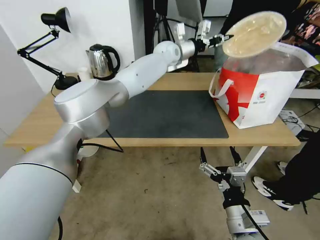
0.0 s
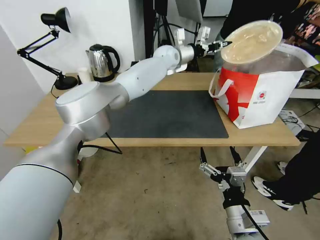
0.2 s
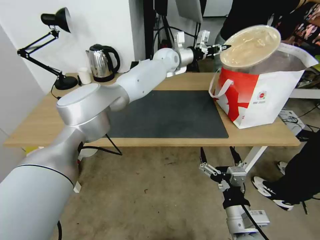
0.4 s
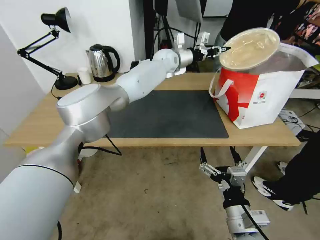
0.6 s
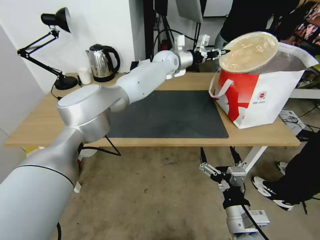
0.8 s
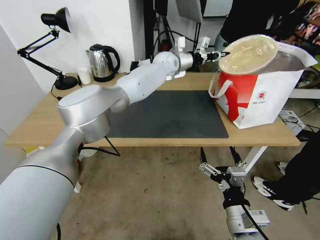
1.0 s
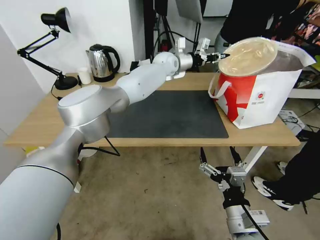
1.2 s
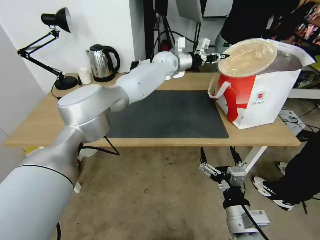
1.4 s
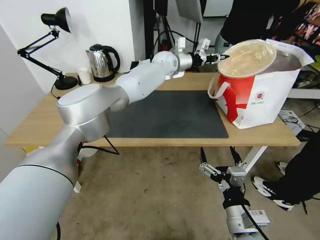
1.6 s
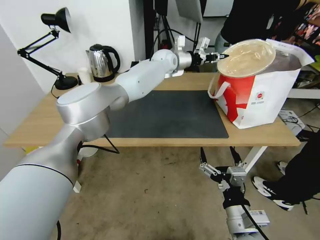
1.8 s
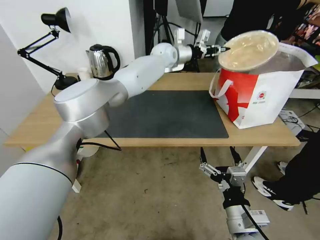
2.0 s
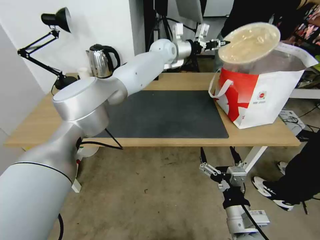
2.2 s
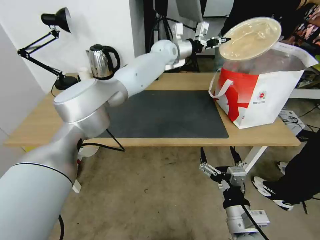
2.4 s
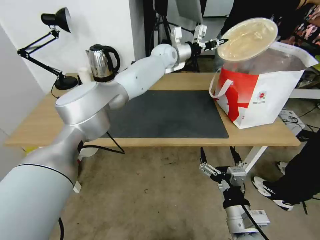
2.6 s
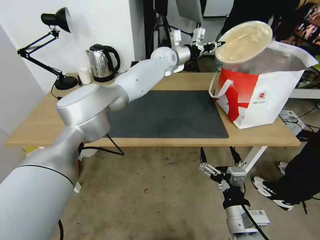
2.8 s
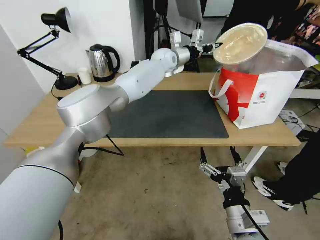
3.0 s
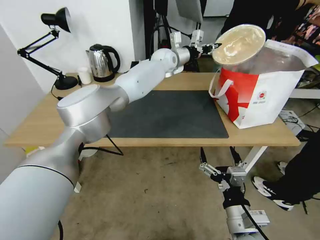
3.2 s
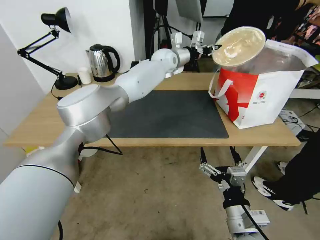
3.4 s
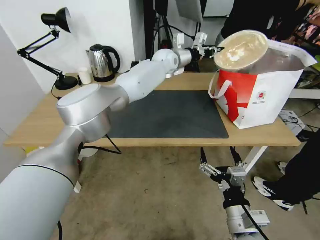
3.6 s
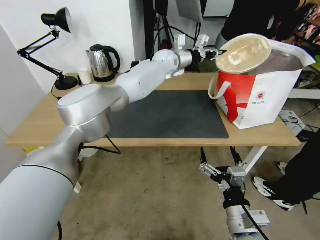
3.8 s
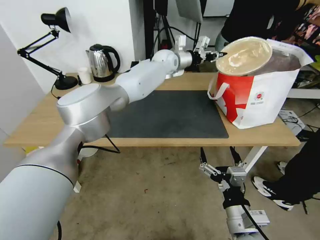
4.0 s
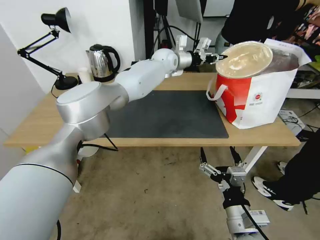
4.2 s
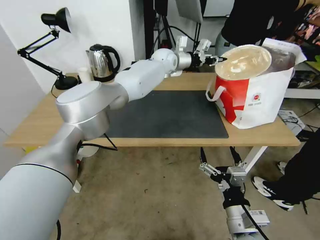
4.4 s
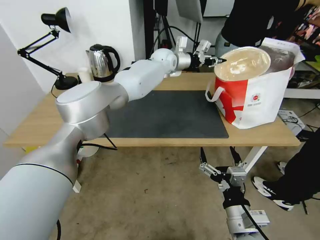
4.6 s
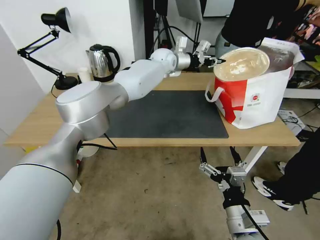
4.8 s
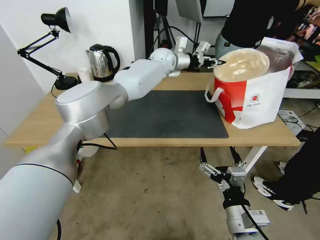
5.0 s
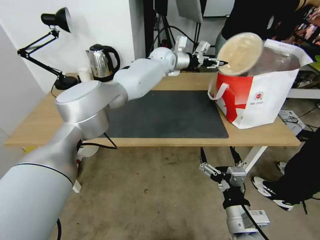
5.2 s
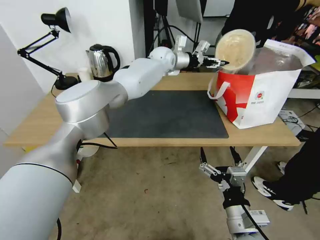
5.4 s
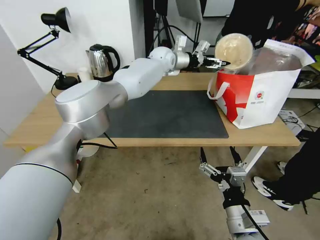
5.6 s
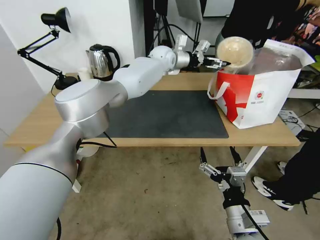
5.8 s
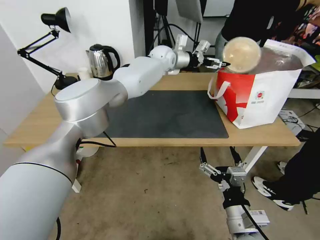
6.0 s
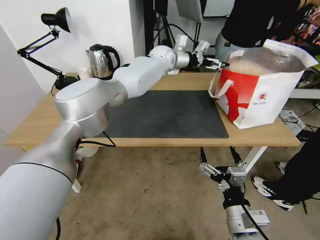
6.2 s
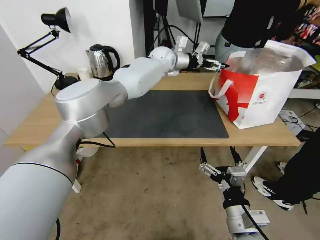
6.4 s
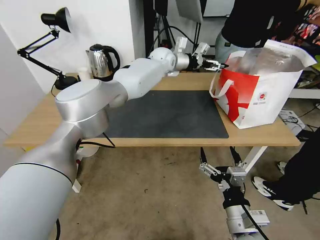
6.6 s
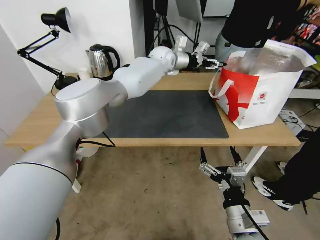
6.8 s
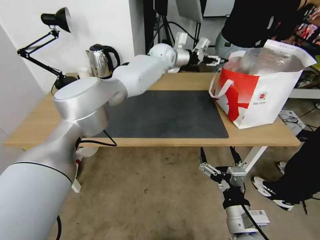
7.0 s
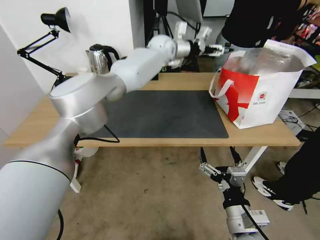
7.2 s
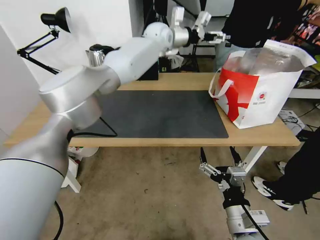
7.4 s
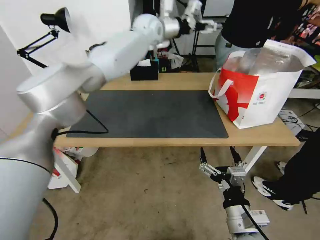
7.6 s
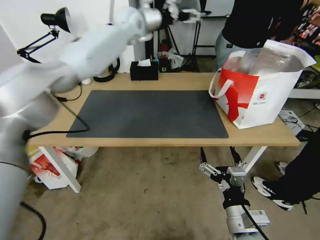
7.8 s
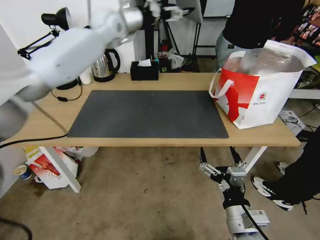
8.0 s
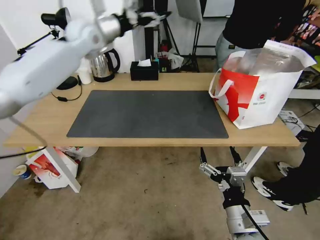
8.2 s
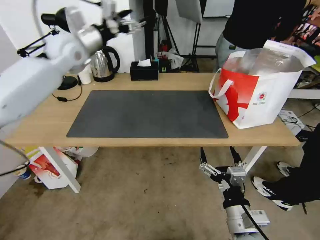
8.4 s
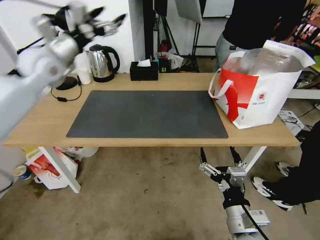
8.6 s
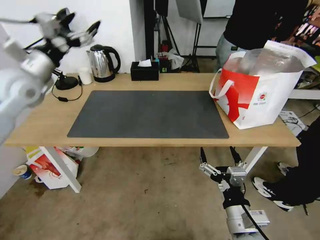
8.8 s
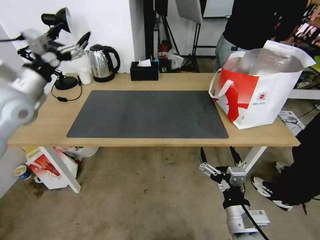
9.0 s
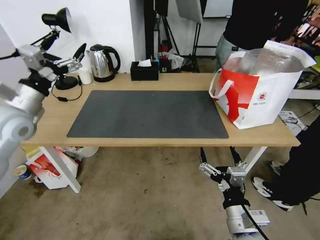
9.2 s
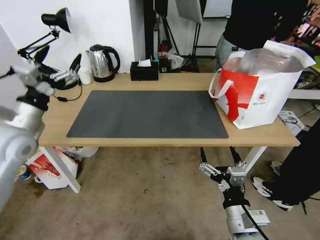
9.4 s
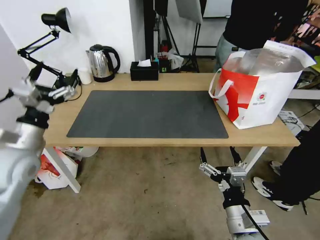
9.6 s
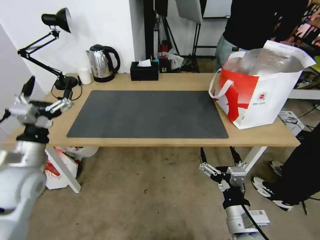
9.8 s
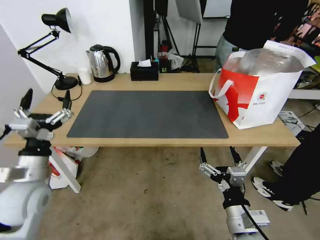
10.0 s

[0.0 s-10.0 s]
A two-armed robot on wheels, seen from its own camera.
Task of the whole recording: Pick up the trash from the table and place it into the takeout bag.
0.0 to 4.2 s: The grippers move only a little.
4.2 to 5.8 s: The left gripper opens its fingers.
5.8 to 7.2 s: The grippers stay close to where they were, moving slightly.
7.2 to 8.6 s: The left gripper moves to the left and backward, roughly 40 cm.
8.6 to 10.0 s: The left gripper moves backward and downward, approximately 35 cm.

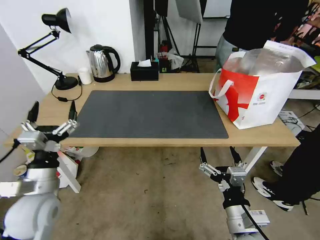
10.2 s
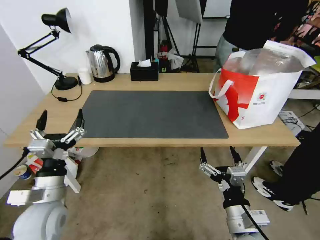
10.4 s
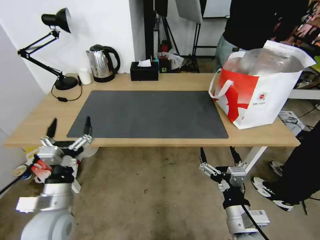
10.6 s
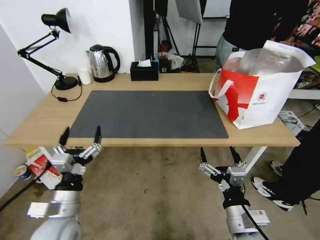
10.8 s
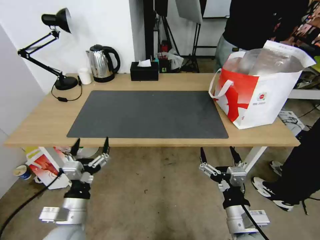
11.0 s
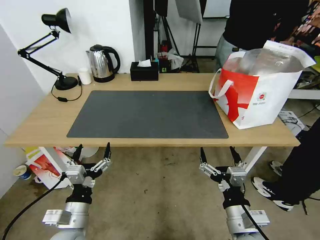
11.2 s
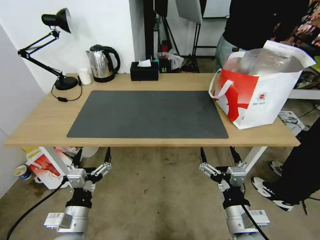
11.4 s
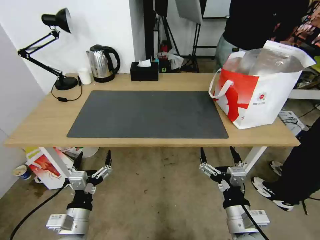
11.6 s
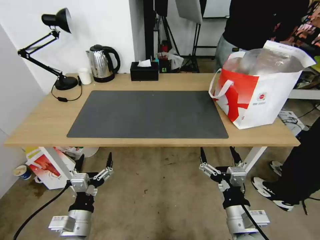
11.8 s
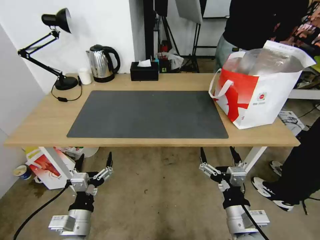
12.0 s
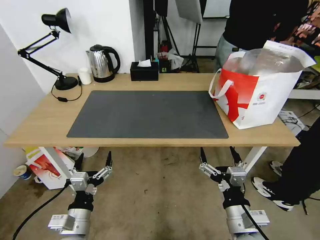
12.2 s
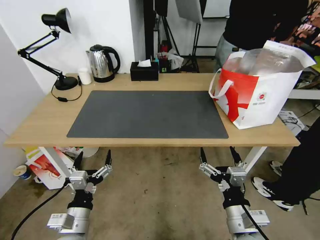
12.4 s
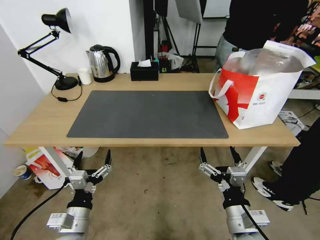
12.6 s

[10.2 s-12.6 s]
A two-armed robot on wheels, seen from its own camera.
Task of the whole recording: Pick up the trash from the table and place it into the takeout bag.
10.2 to 11.4 s: The left gripper moves downward, backward and to the right, some 10 cm.
11.4 to 12.6 s: The grippers make only small movements.

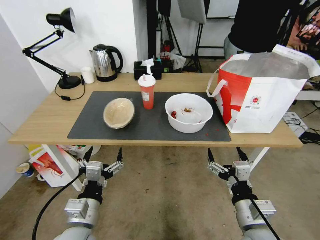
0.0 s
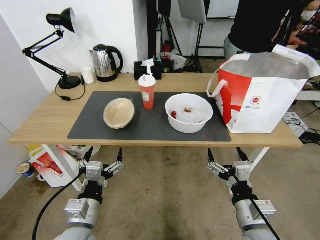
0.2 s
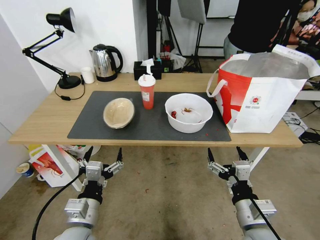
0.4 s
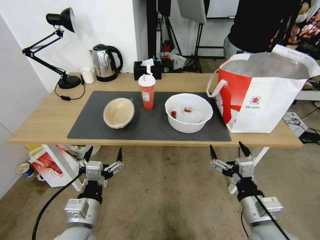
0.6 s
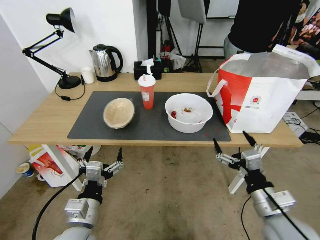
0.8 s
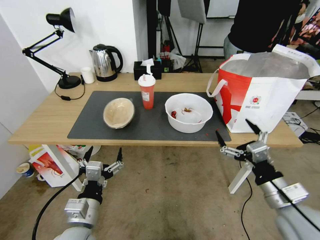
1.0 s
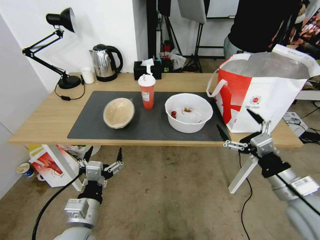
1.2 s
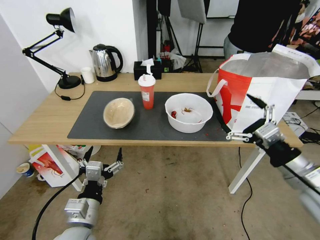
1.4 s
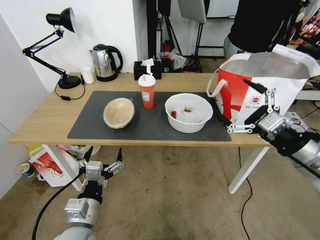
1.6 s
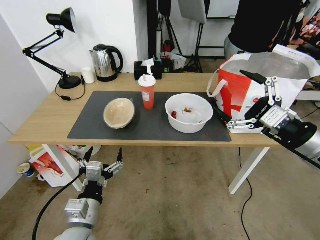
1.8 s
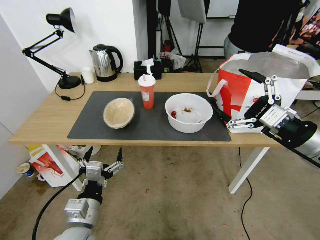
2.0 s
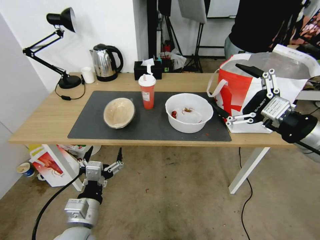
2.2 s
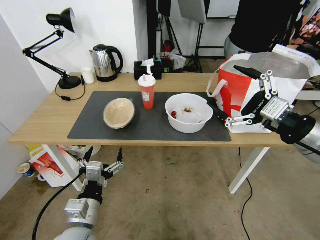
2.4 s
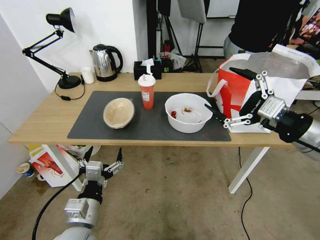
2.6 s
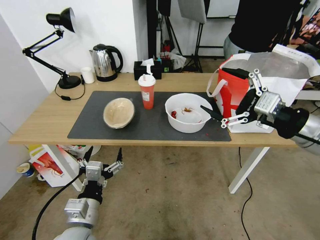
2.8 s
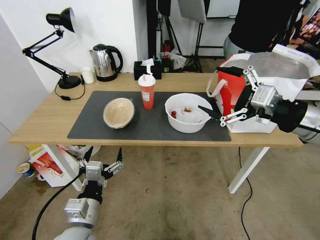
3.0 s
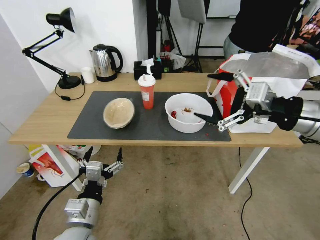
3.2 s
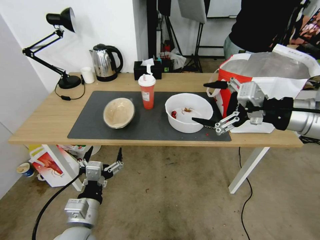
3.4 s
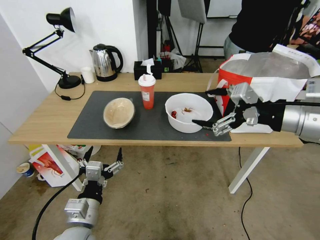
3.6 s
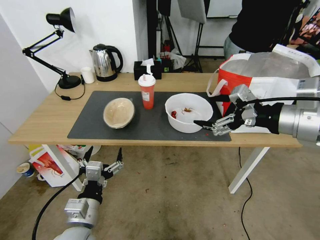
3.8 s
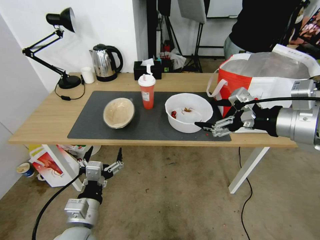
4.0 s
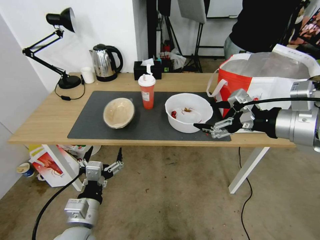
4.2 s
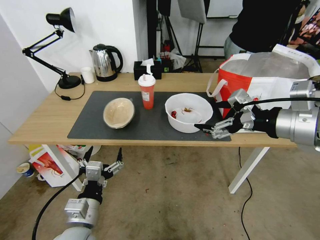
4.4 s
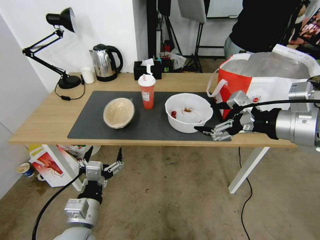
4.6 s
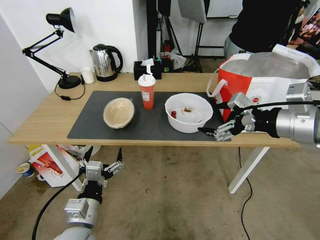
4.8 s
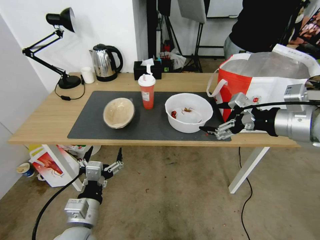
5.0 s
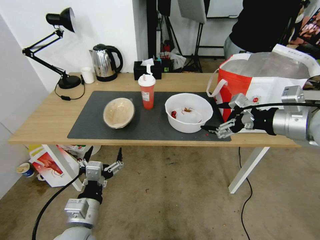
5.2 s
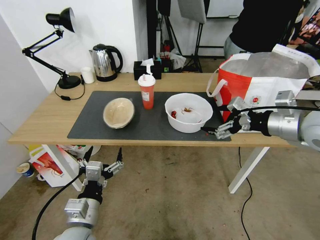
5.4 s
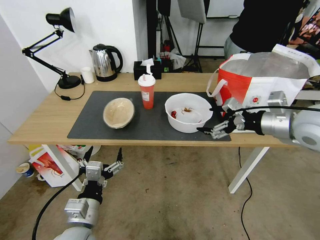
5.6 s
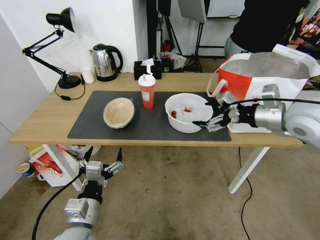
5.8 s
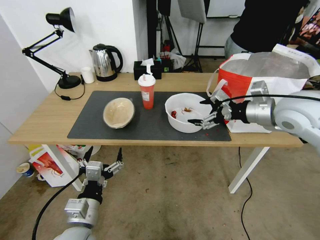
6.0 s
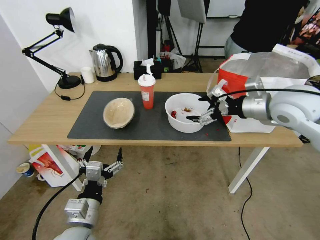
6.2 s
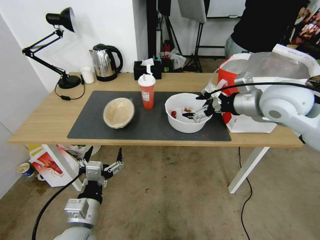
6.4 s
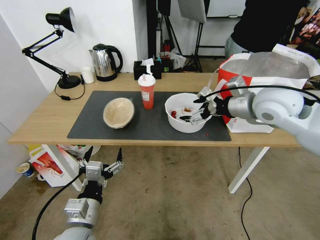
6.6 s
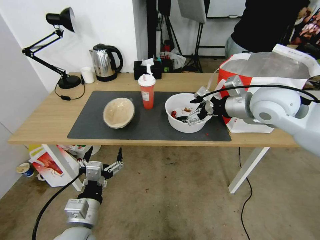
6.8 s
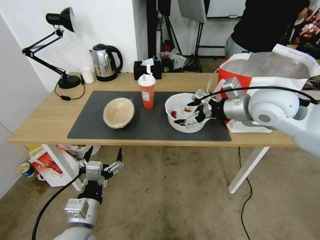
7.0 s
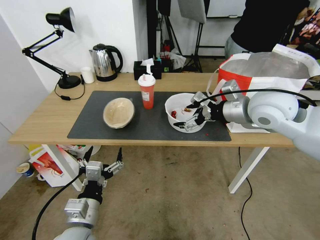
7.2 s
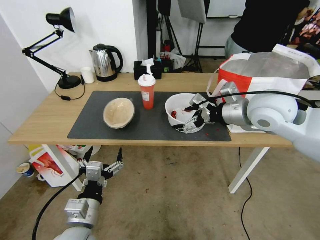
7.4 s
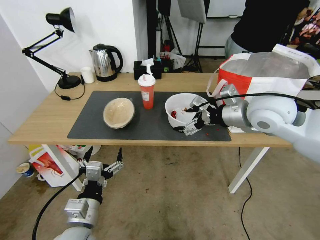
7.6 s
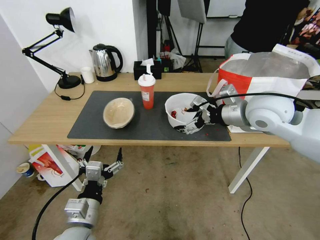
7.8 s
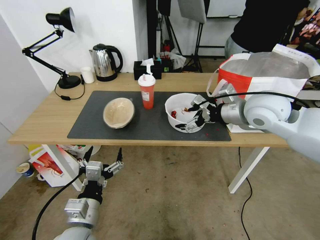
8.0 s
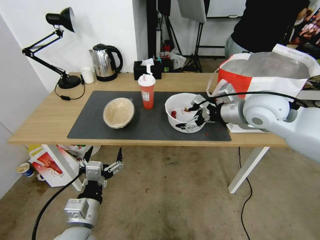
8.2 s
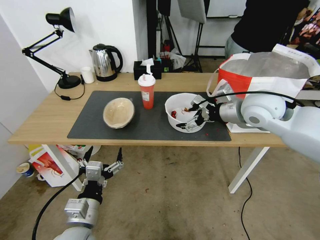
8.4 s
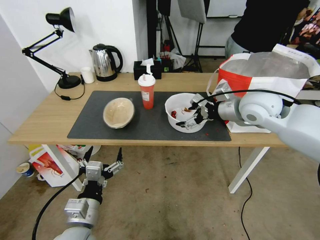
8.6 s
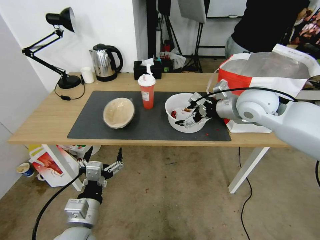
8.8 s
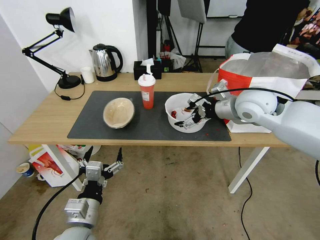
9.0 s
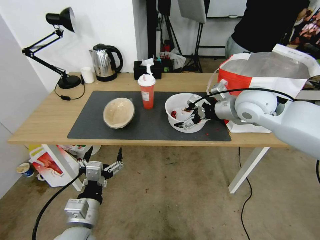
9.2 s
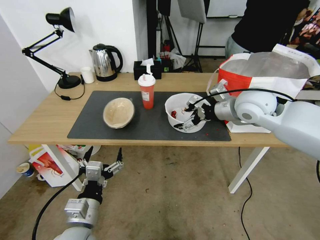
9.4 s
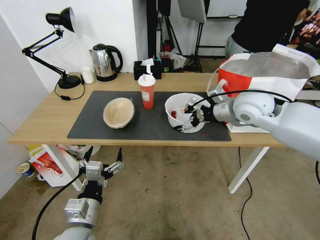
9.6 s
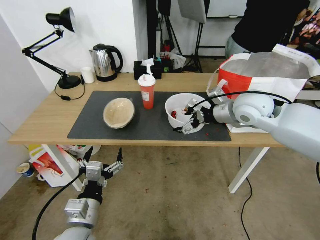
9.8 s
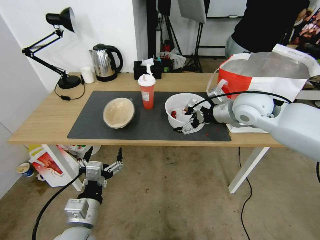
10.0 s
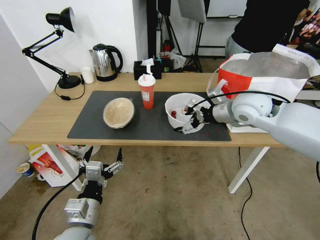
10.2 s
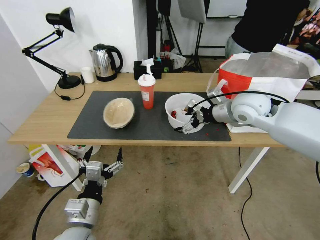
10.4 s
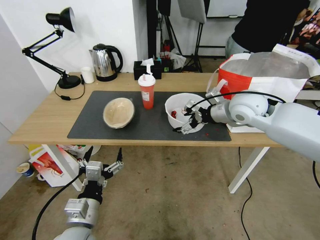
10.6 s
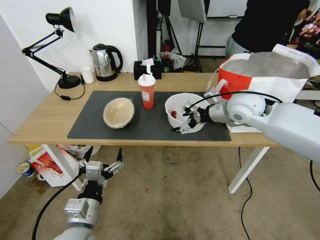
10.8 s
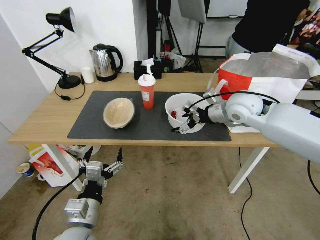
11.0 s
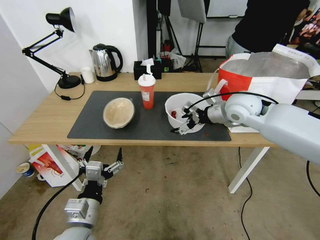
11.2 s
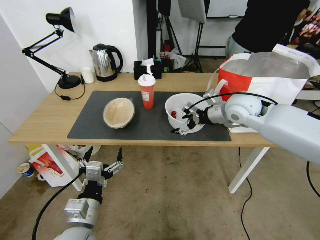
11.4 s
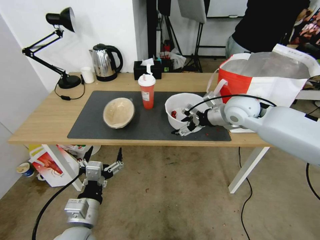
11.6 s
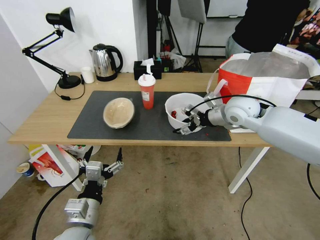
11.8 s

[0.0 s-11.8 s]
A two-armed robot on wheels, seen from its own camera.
Task of the whole recording: Pick up the trash from the table and place it into the takeout bag.
1.4 to 3.0 s: The right gripper is displaced upward by roughly 15 cm.
4.4 to 6.0 s: The right gripper travels forward and downward by about 10 cm.
6.0 to 7.4 s: The right gripper heads to the left, covering roughly 5 cm.
7.4 to 8.8 s: The right gripper travels forward by about 5 cm.
8.8 to 10.4 s: The grippers make only small movements.
10.4 to 11.8 s: The right gripper closes.
